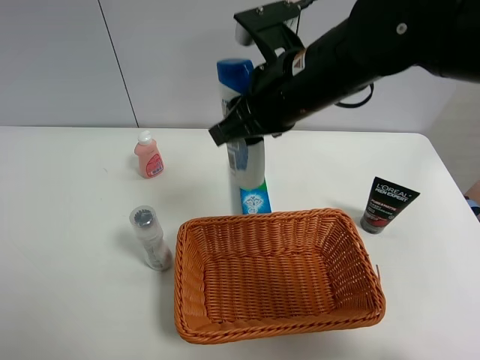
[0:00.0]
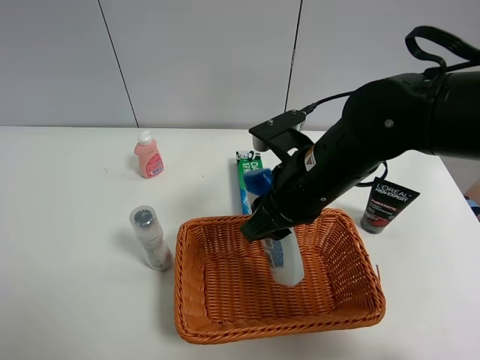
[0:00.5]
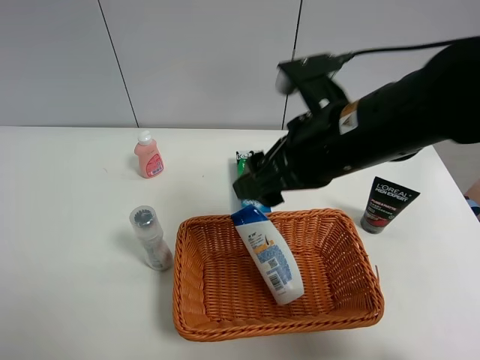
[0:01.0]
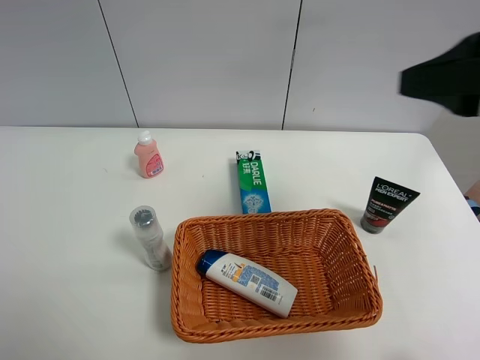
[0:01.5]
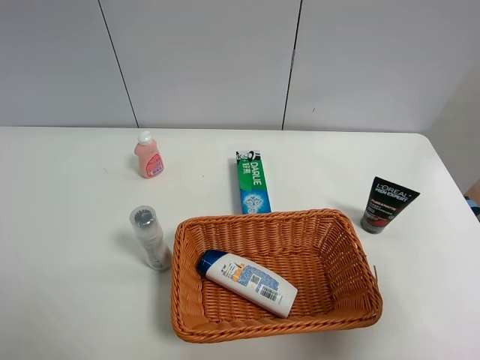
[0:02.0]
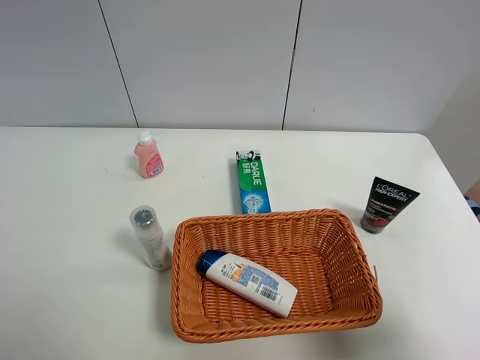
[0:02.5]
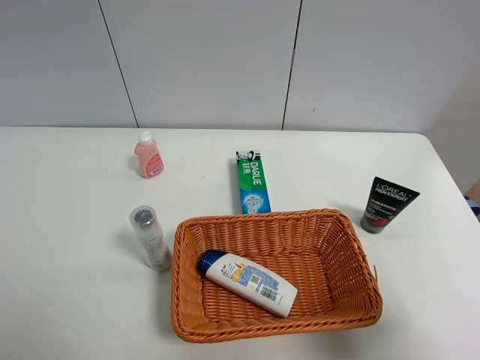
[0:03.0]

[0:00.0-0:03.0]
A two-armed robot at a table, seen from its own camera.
Task of the whole recording: Place the object closest to the toothpaste in the basket.
Step, 0:00.0 to 0:01.0: Place the shampoo in the basket with right gripper.
0:00.0 to 0:01.5: The right gripper moves to the right, backward and upward, about 25 cm, and opens its fingers.
0:01.5 to 0:03.0: The right gripper heads backward and downward, covering about 20 cm.
